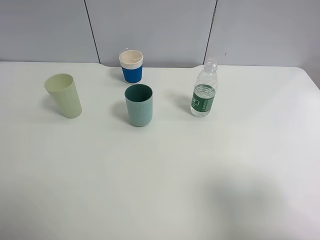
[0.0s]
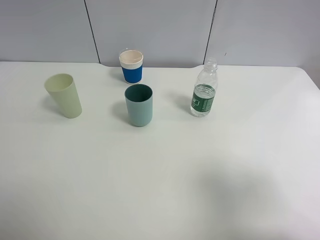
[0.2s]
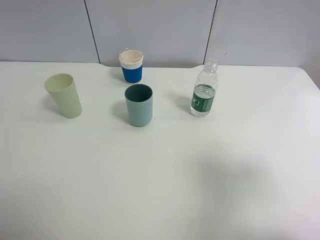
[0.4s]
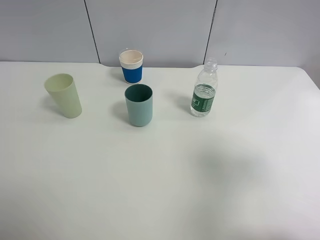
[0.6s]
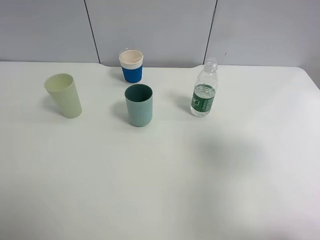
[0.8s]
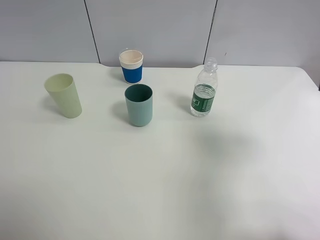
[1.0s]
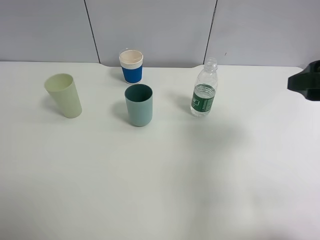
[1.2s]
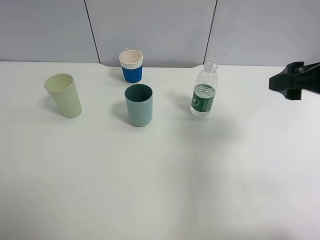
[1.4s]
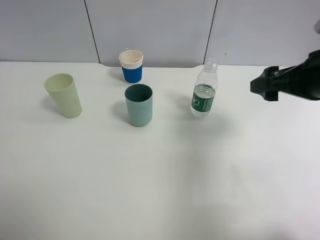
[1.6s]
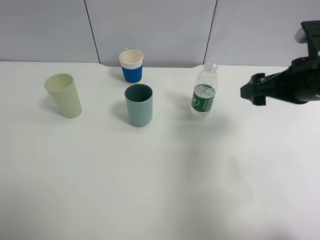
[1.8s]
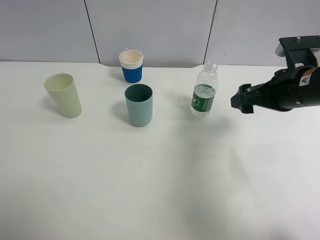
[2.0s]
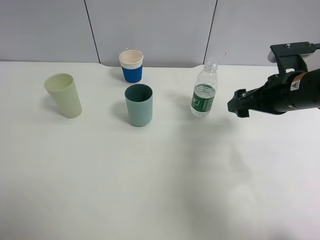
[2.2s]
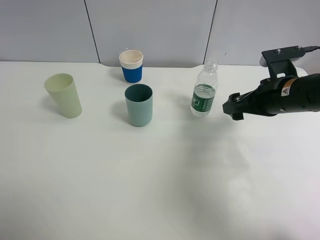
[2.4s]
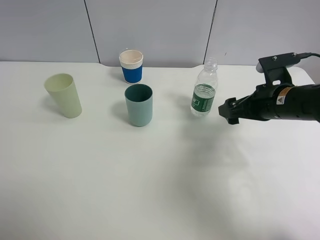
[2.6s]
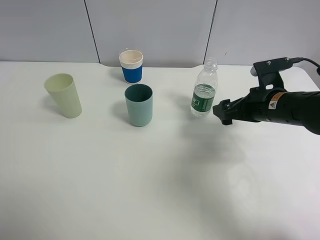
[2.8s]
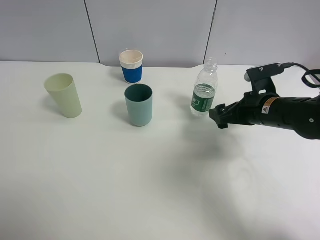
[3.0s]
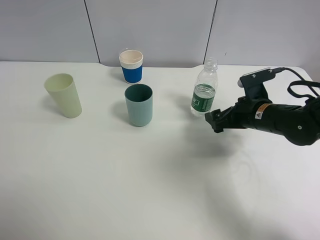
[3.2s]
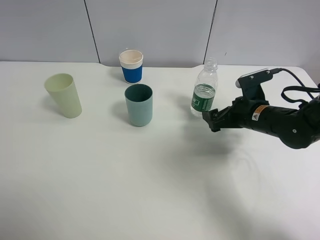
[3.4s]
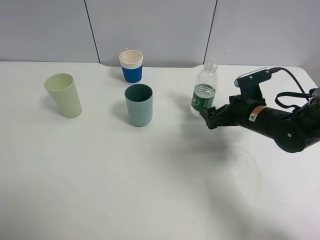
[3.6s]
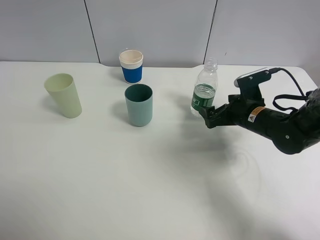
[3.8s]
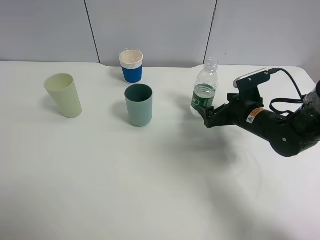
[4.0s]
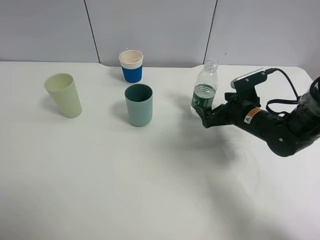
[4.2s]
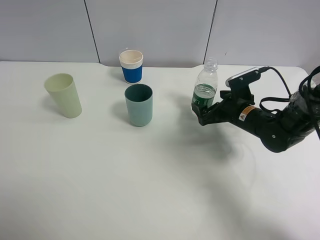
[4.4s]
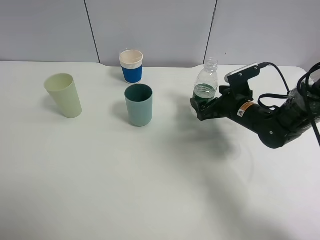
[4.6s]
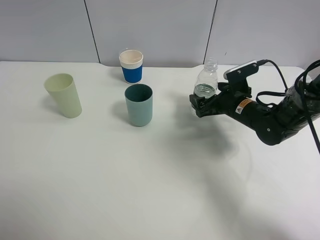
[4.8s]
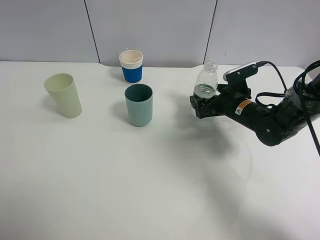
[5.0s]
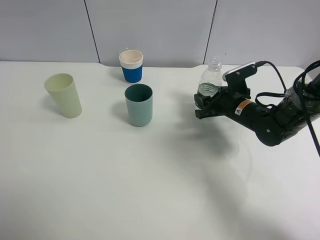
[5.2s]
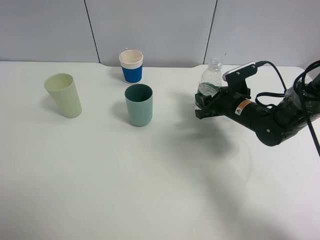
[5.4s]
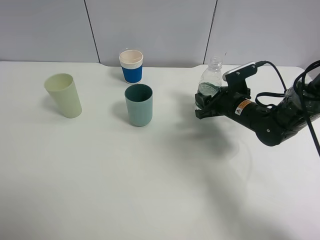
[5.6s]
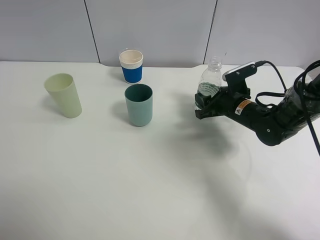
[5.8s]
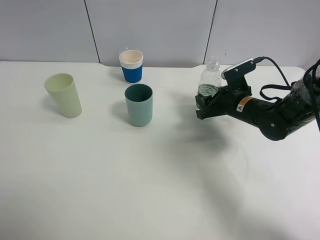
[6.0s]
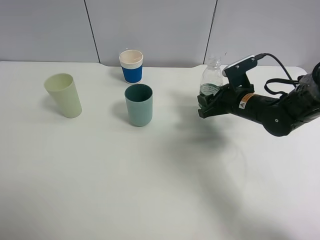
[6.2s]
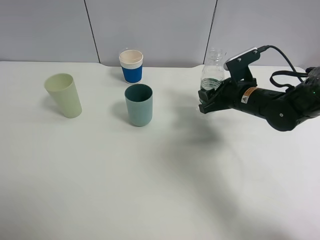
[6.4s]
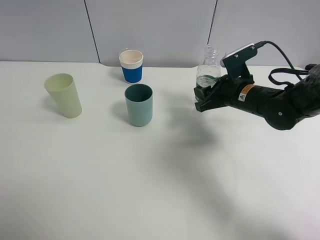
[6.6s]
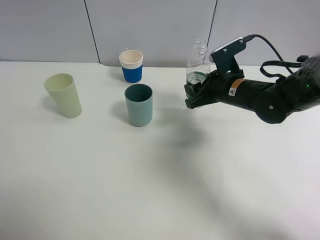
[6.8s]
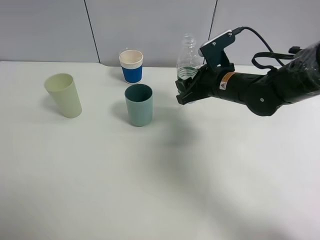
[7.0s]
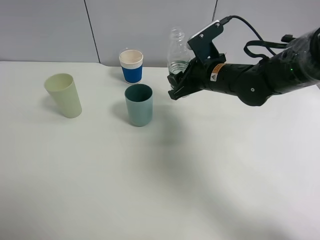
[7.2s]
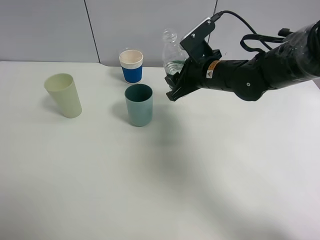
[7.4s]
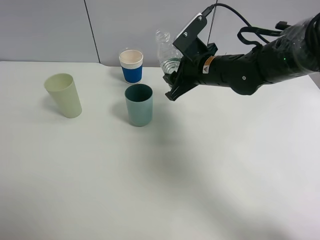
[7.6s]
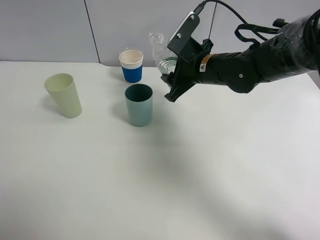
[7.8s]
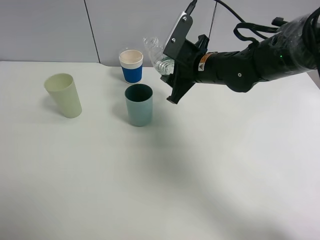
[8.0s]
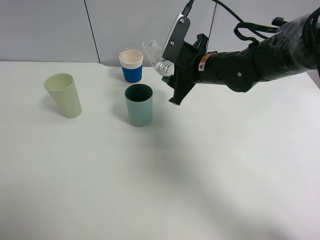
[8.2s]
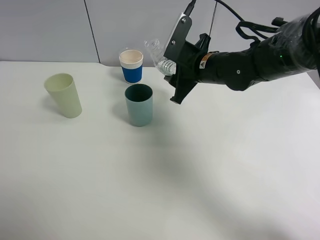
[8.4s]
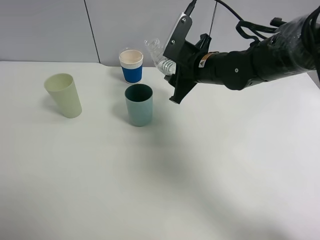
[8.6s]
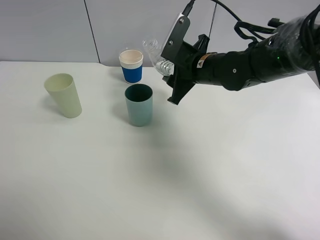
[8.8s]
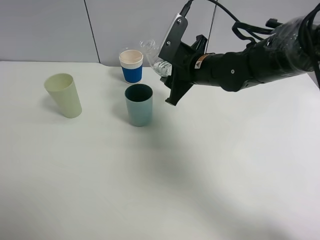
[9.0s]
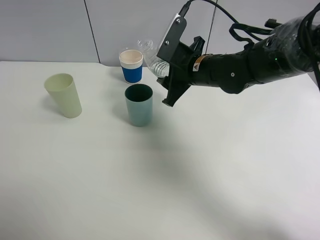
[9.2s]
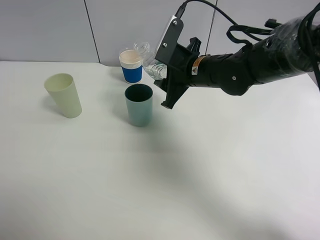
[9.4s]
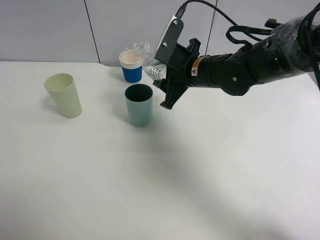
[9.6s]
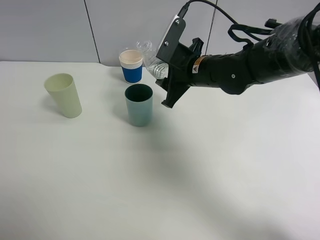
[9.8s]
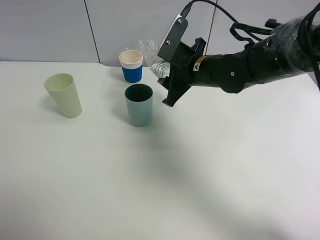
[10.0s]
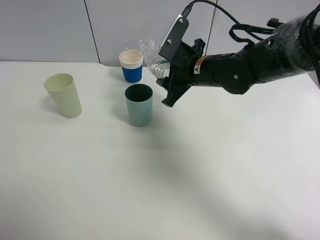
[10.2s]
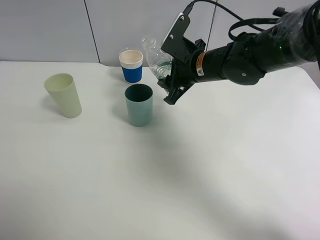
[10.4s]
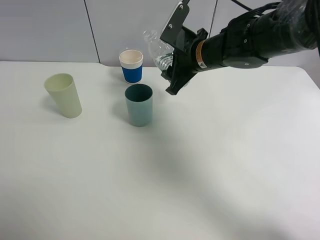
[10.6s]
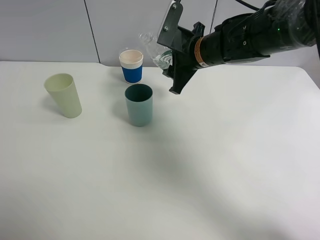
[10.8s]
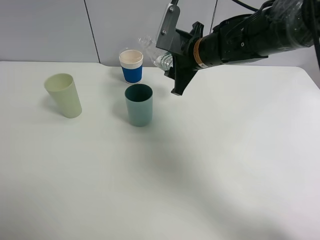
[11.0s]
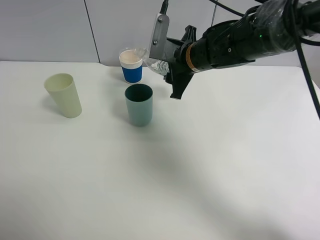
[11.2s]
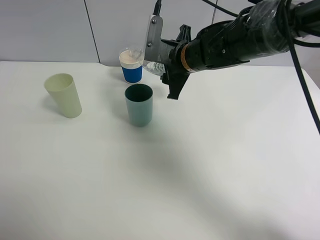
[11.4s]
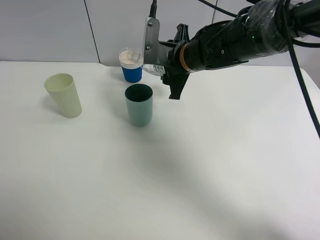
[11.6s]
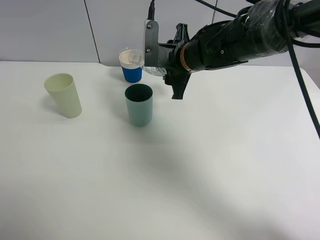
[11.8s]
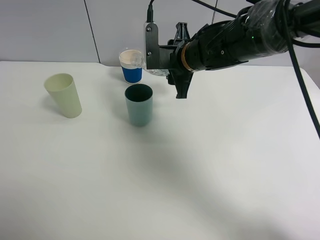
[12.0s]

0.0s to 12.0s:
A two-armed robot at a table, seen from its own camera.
Task of the whole recording: use a clamp to hold the bottle of the drink, pour the beverage into a random cup, then clamp the cup containing the drink and pour the drink into another random cup.
Step, 0.0s to 6.2s: Pick up the water bottle with right gripper.
0.0s to 1.6s: The right gripper moves forward, approximately 20 cm.
1.6s to 3.0s: The right gripper goes some 15 cm downward and forward.
3.0s to 4.4s: The right gripper changes place by about 5 cm.
4.4s to 6.0s: The right gripper closes up.
6.0s to 7.6s: The right gripper moves to the left and upward, some 15 cm.
7.6s to 10.4s: The grippers stay close to where they were, moving slightly.

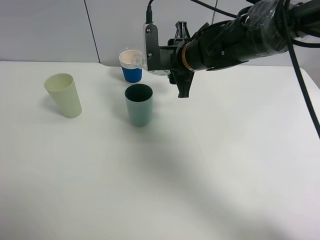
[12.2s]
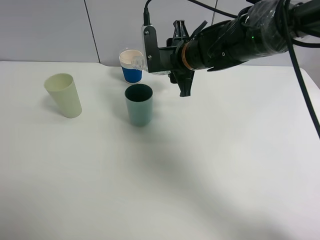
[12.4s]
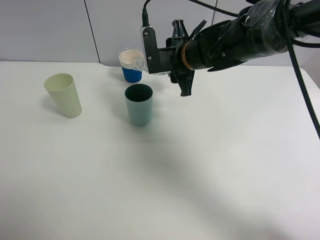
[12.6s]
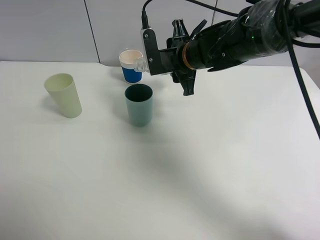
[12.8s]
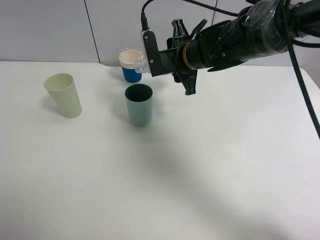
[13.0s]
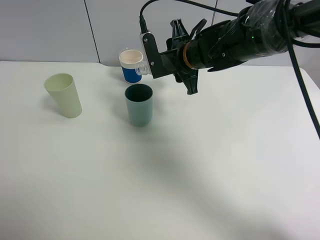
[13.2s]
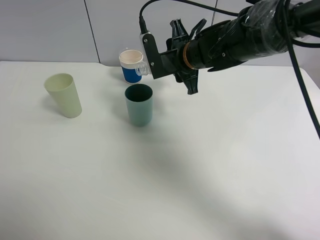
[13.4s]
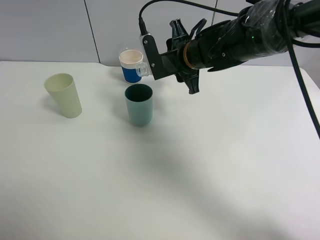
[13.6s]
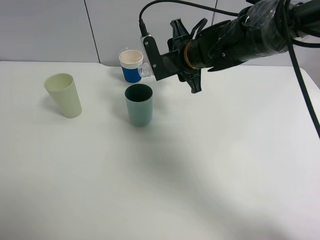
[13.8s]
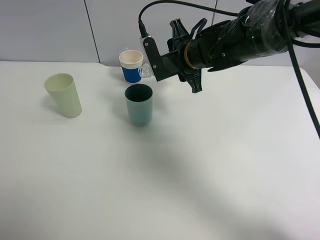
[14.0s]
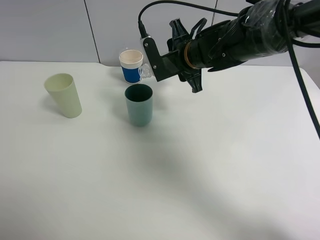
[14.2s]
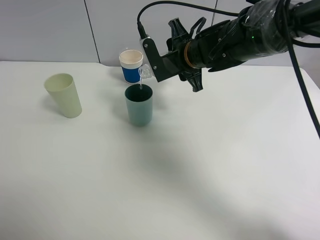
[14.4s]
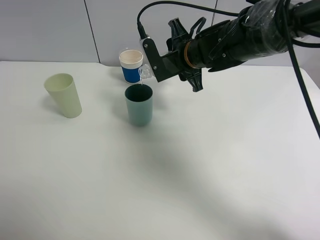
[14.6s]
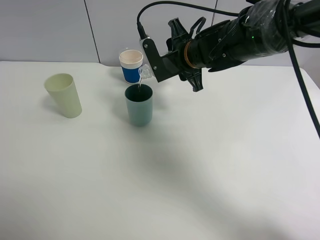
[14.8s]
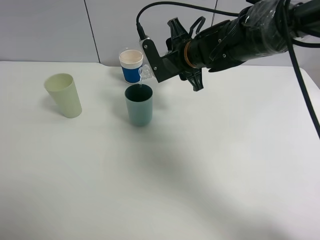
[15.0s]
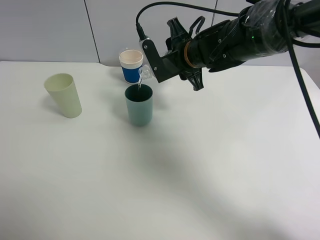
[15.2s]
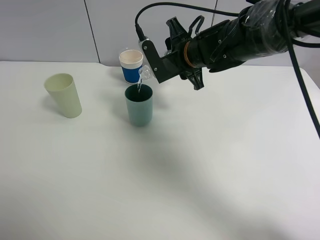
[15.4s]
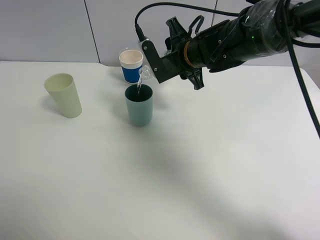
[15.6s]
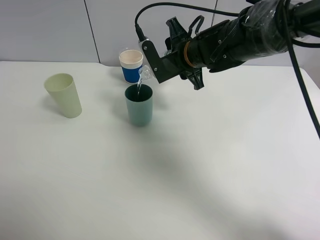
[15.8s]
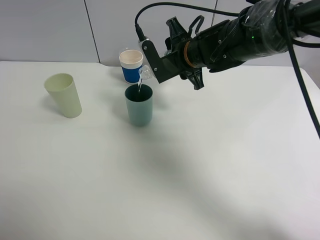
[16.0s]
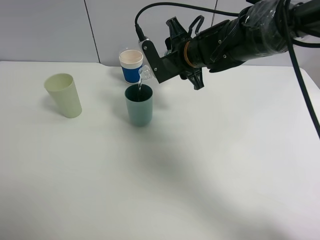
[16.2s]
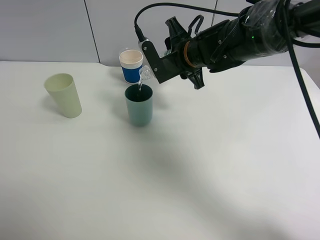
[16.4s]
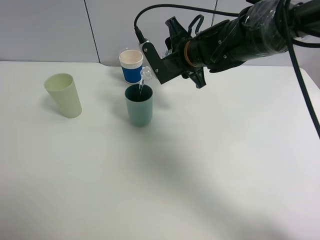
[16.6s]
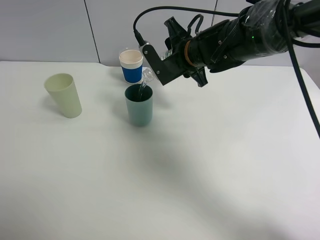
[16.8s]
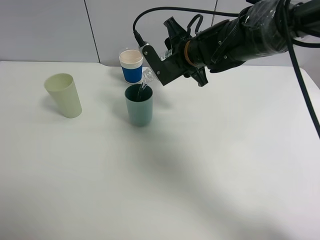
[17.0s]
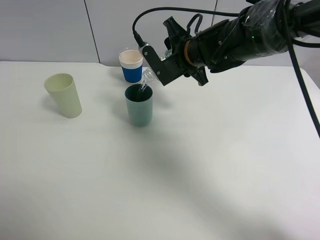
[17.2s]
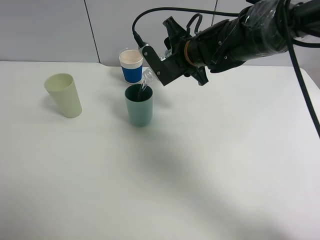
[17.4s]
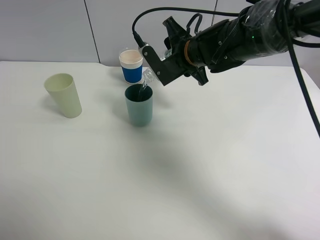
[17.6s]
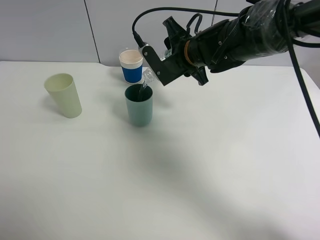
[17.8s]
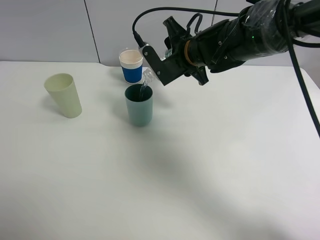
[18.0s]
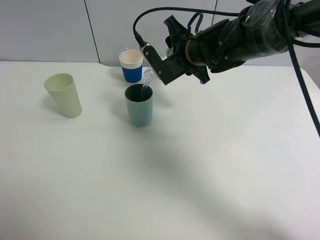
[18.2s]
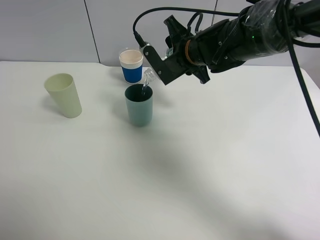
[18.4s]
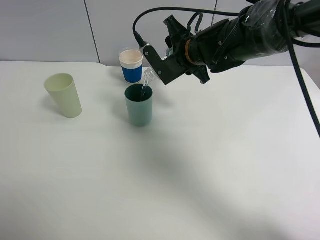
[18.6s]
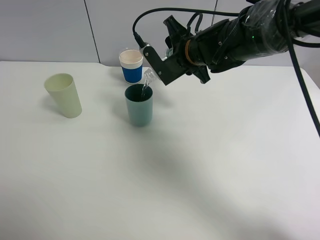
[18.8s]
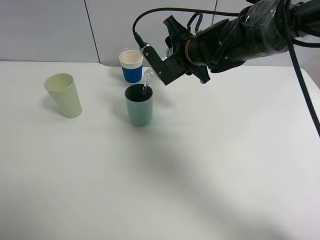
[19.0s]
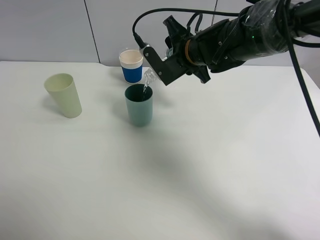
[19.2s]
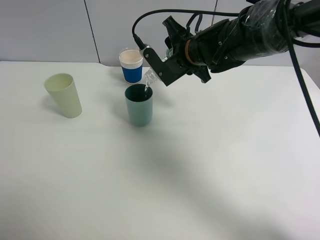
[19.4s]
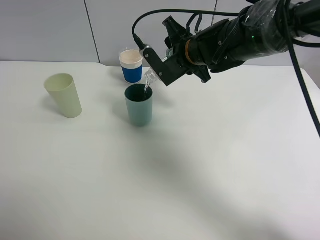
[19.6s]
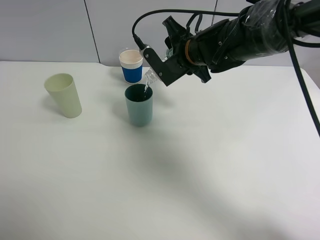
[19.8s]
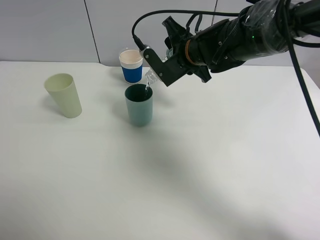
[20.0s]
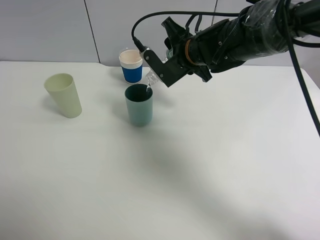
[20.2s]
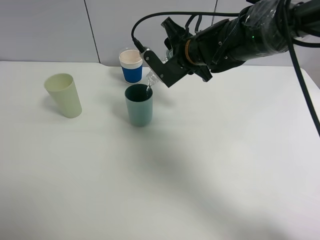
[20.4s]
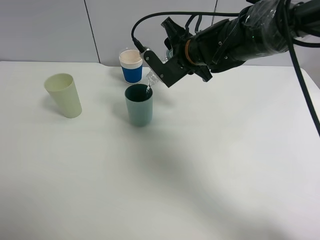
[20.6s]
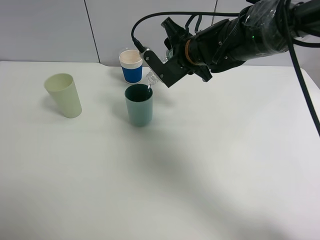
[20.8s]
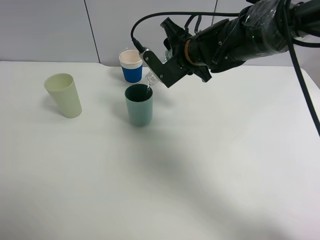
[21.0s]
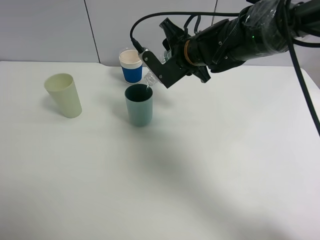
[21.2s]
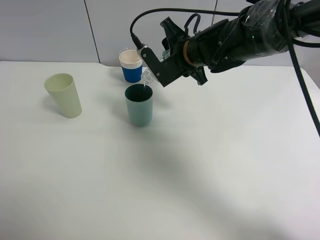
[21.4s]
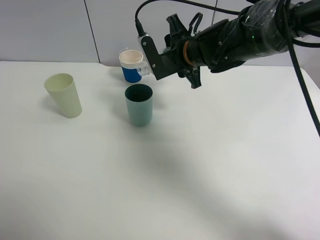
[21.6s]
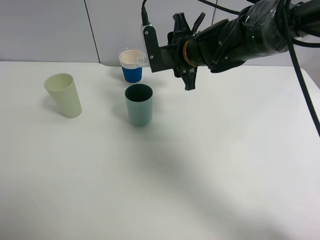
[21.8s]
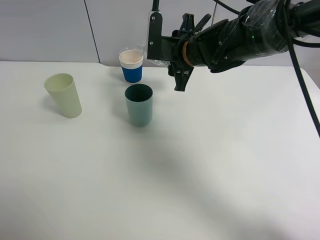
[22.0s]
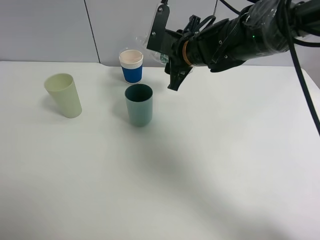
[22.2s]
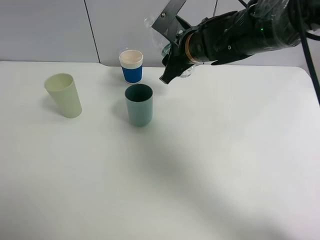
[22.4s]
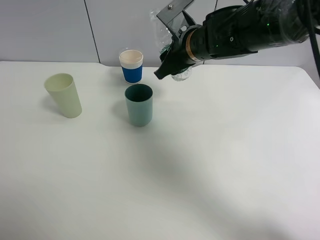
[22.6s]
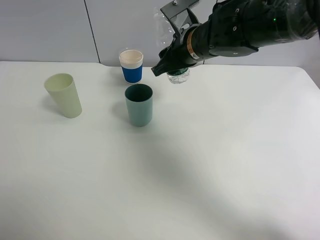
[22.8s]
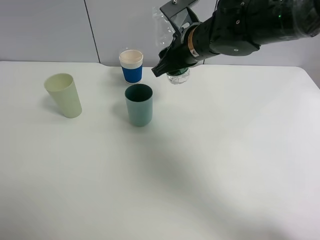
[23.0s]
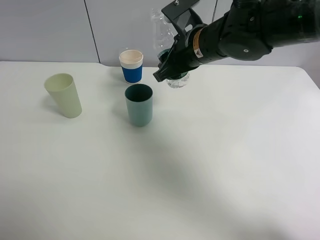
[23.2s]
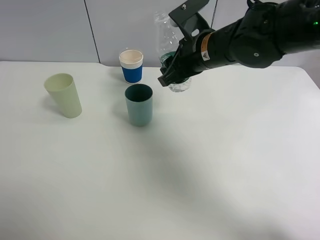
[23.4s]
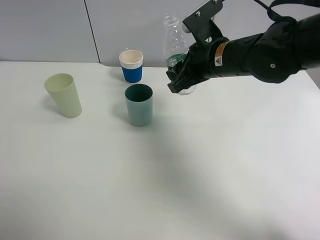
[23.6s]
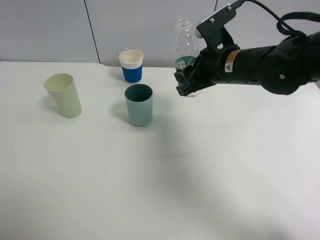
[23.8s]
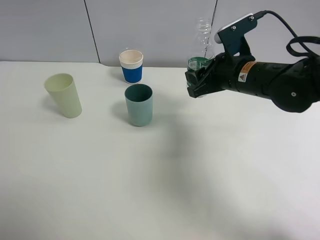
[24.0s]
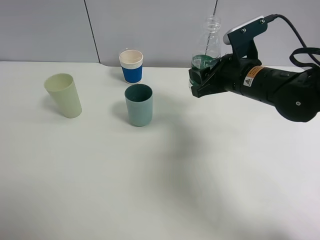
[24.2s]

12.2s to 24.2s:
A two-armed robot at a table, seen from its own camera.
Task of the whole recording: use a clamp to hold the bottle of the drink, pour the beverage into a random cup, then clamp the cup containing the drink and pour the drink into another random cup.
Step, 12.2s to 22.0s: Pour water into the blue plastic cup with right gripper.
12.2s to 13.8s: There are only small adjustments of the grippers.
13.8s to 18.2s: The grippers make only small movements.
18.2s to 19.8s: The two grippers keep their place.
19.8s to 21.2s: Both grippers stay about where they are.
22.6s to 24.2s: The right gripper is displaced to the right and backward by approximately 10 cm.
